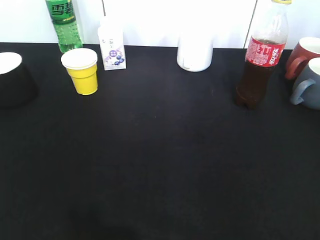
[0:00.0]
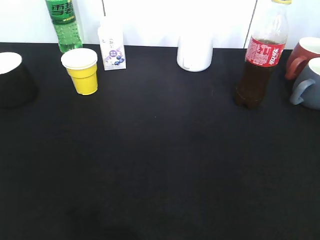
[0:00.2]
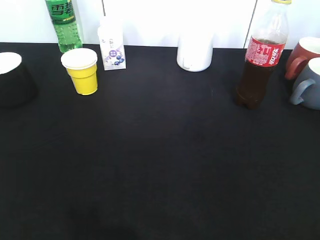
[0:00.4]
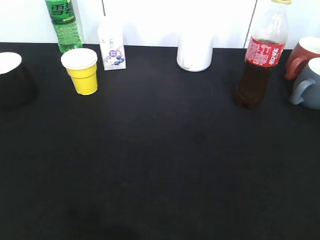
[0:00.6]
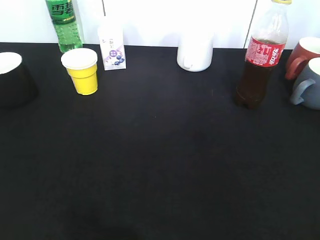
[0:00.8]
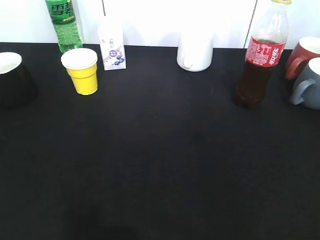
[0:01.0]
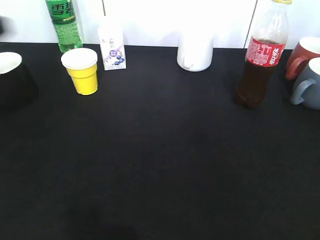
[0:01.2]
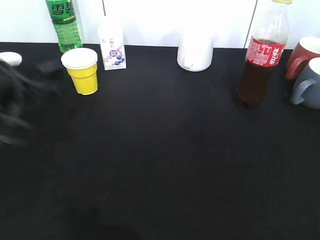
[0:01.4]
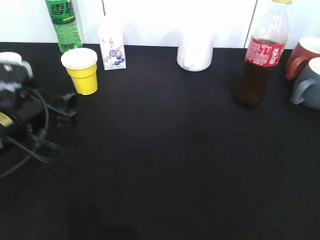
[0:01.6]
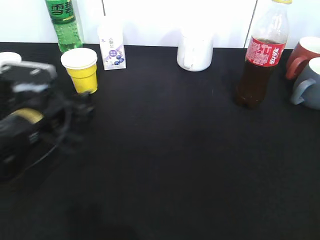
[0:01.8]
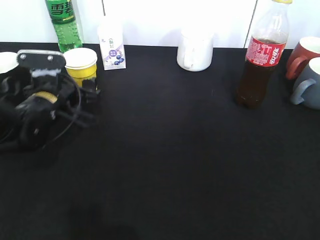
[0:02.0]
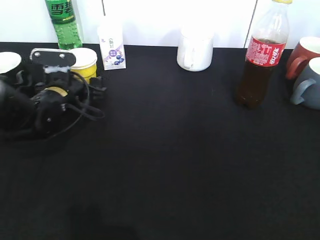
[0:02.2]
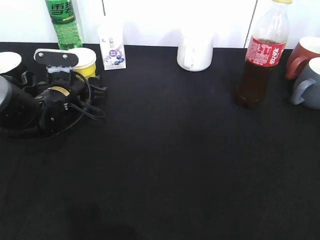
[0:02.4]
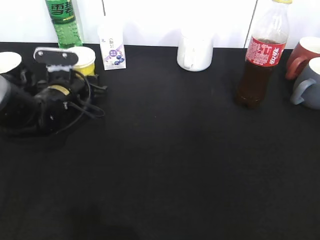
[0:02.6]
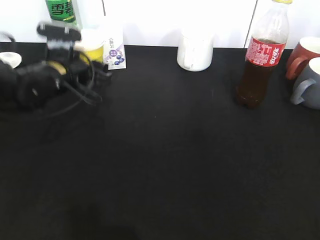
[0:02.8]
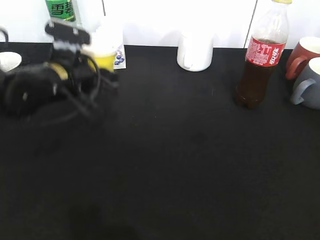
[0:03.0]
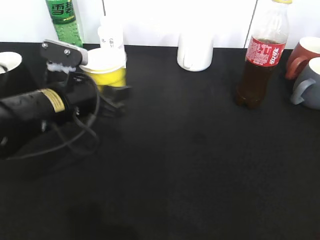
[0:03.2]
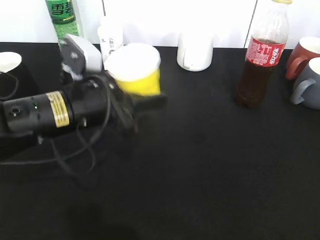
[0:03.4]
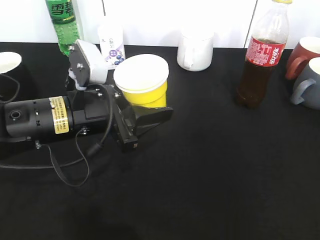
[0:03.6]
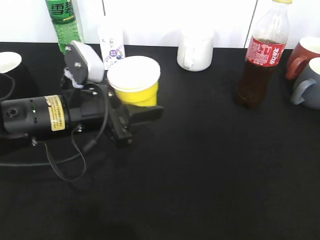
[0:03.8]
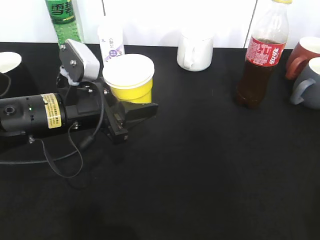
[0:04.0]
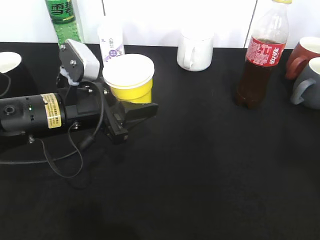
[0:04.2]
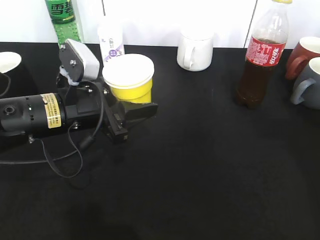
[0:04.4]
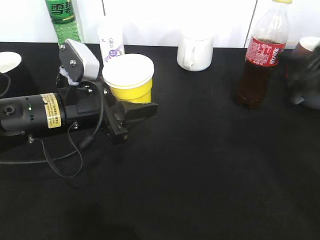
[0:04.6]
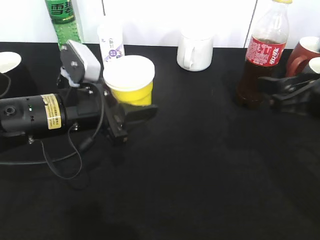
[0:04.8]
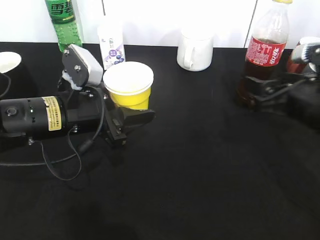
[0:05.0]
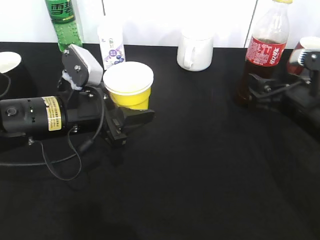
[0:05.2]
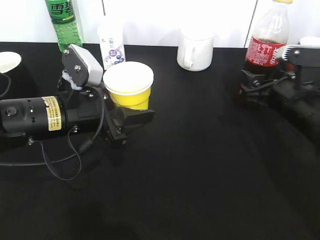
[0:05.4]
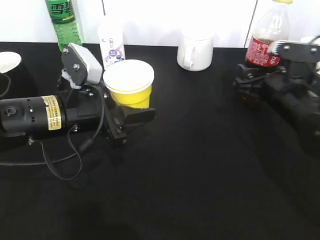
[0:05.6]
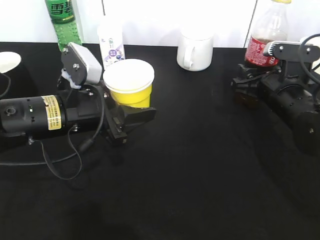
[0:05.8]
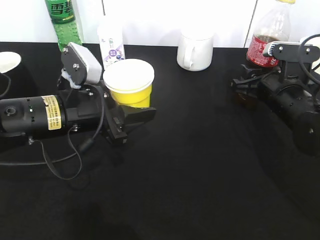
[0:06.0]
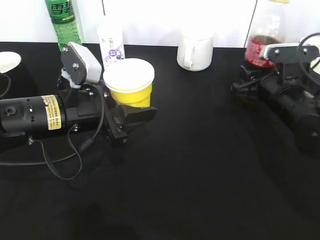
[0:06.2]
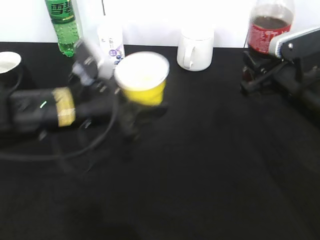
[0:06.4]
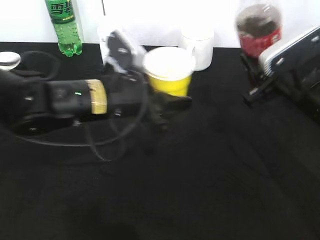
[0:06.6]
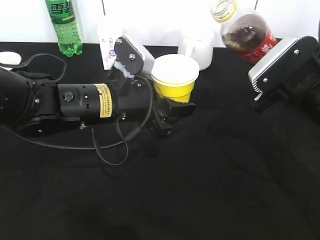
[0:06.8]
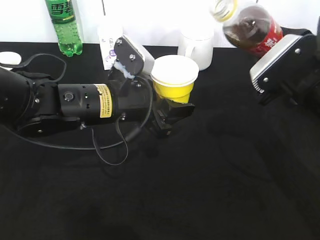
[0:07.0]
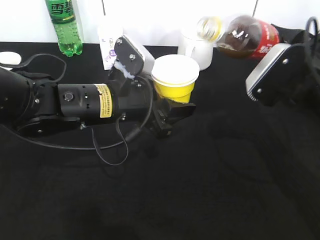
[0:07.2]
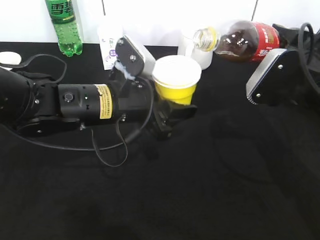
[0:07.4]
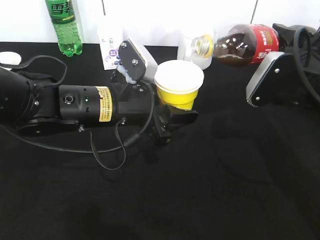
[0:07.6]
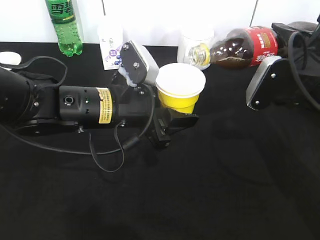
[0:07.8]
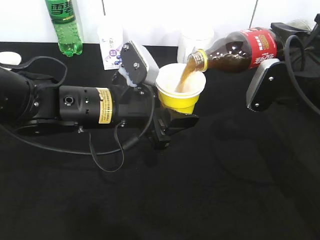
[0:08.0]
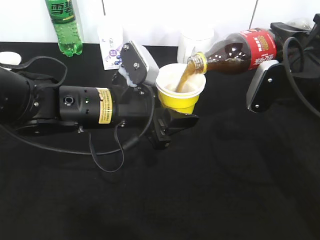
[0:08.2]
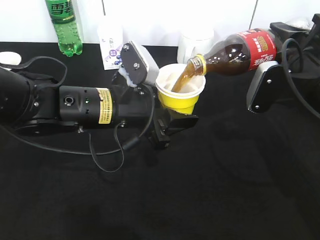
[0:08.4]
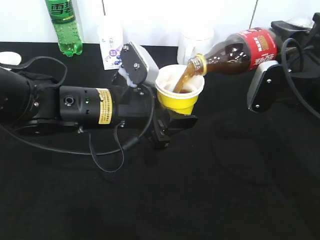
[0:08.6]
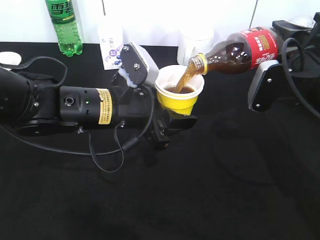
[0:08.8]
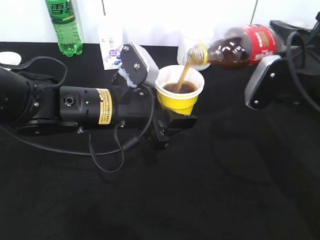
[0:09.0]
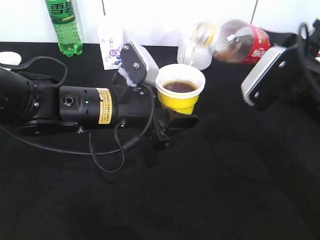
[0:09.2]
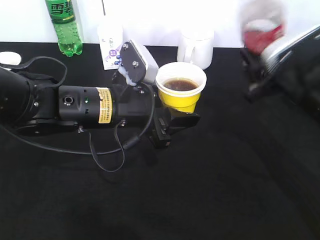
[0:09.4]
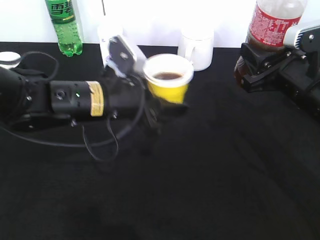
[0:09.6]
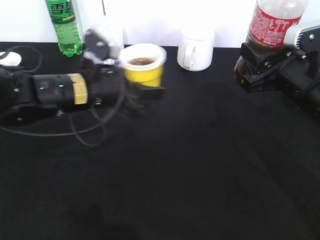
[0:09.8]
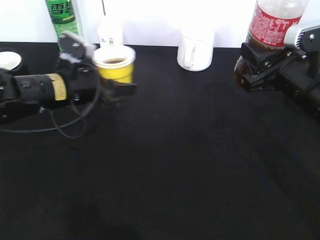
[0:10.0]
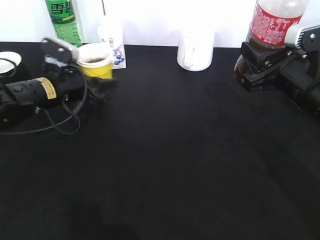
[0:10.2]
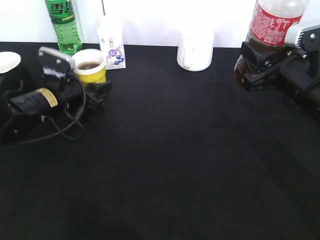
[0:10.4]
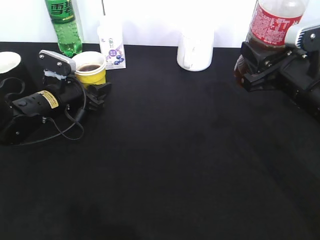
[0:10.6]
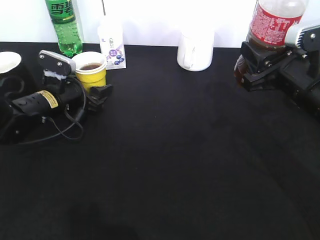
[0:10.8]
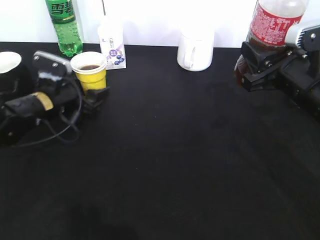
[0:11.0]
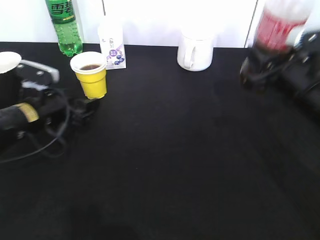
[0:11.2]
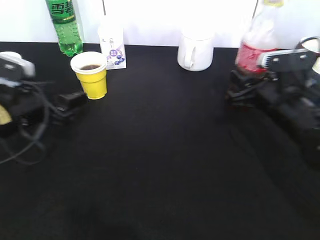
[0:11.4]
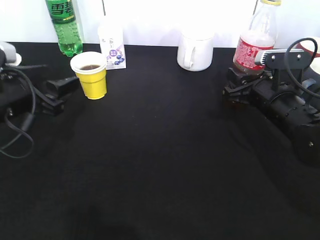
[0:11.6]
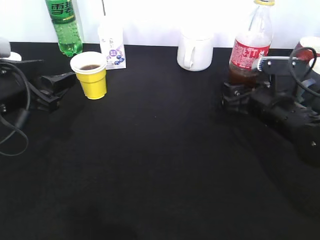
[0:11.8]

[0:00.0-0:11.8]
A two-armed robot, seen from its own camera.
Step, 0:00.0 to 0:02.4: Grasp the yellow paper cup with left gripper.
Step, 0:02.6 to 0:03.4: Lift the yellow paper cup with left gripper.
Step, 0:03.6 to 0:05.8: Grasp the bottle with cola with right gripper.
Step, 0:06.2 to 0:08.8: Pour the cola from bottle to cup with right gripper.
Step, 0:09.0 to 0:10.8: Place the yellow paper cup on the table with left gripper.
0:00.0 to 0:01.4: The left gripper shifts about 25 cm forward and to the right, and opens up.
0:01.4 to 0:03.0: The left gripper goes about 10 cm forward and to the right.
0:03.0 to 0:04.4: The left gripper heads backward, covering some 5 cm. The right gripper is displaced forward by some 20 cm.
0:04.4 to 0:06.0: The right gripper shifts roughly 25 cm downward, forward and to the left, and closes up.
0:06.0 to 0:07.4: The left gripper goes roughly 5 cm to the right. The right gripper travels upward and backward by approximately 10 cm.
0:07.4 to 0:08.8: The grippers stay close to where they were, moving slightly.
0:08.8 to 0:10.4: The left gripper is displaced to the left, forward and downward by approximately 20 cm.
0:10.4 to 0:11.8: The left gripper heads backward and upward, covering some 15 cm. Meanwhile the right gripper is displaced downward by roughly 10 cm, and opens its fingers.

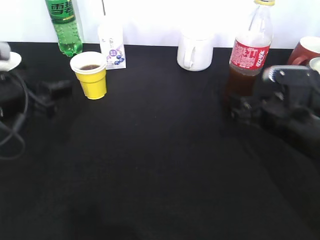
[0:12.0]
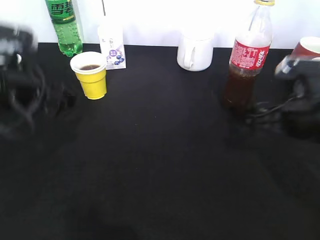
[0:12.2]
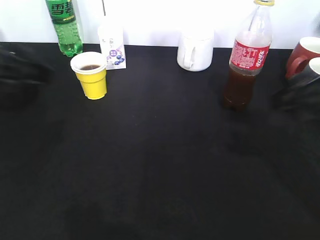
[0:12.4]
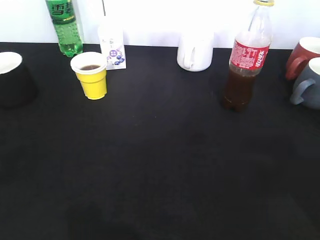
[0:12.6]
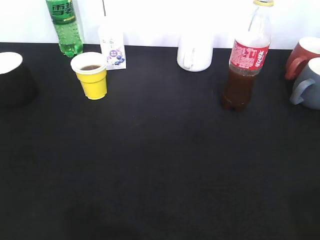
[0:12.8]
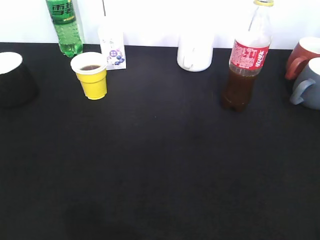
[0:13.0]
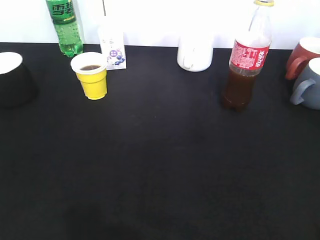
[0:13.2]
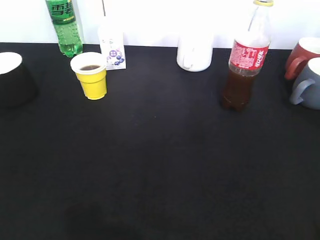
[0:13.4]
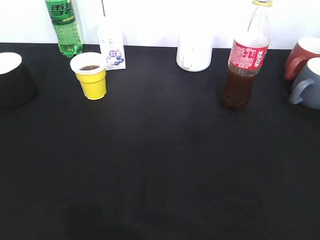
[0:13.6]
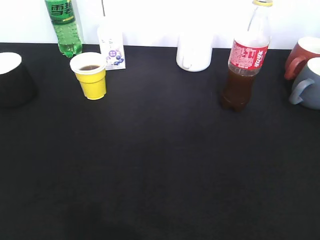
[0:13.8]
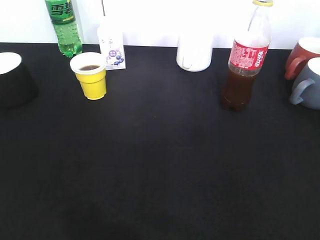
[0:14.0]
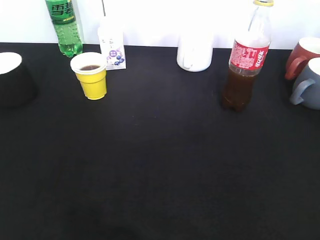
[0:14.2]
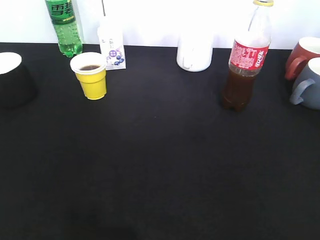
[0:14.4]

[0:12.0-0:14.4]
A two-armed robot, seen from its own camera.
0:12.0 to 0:13.2: The left gripper moves backward, roughly 25 cm. Meanwhile the right gripper goes some 30 cm backward and upward.
0:13.2 to 0:14.4: The left gripper closes its fingers.

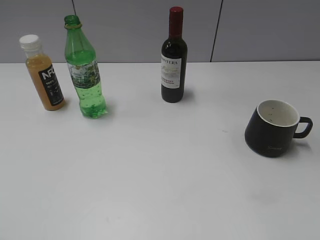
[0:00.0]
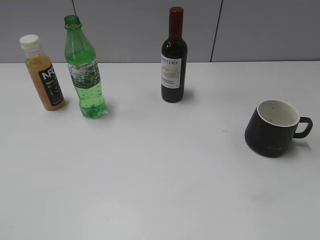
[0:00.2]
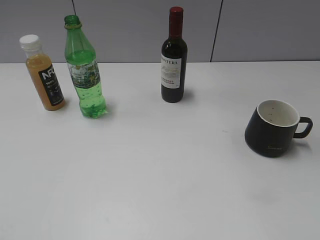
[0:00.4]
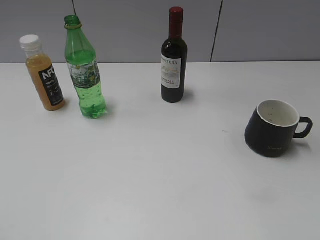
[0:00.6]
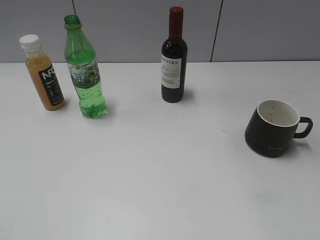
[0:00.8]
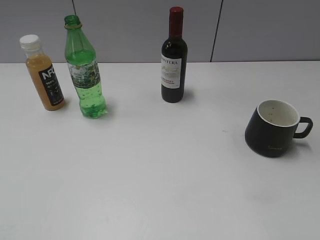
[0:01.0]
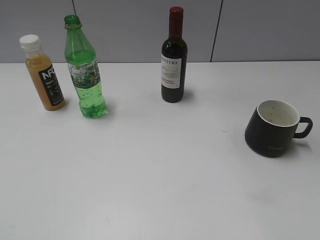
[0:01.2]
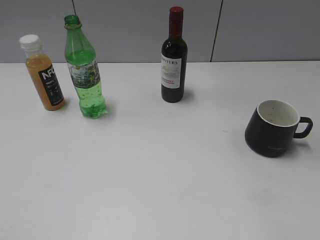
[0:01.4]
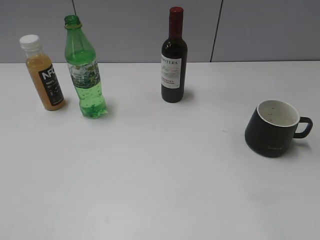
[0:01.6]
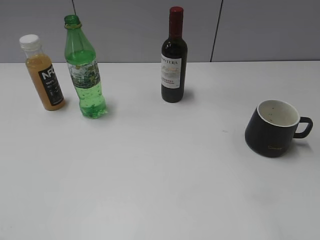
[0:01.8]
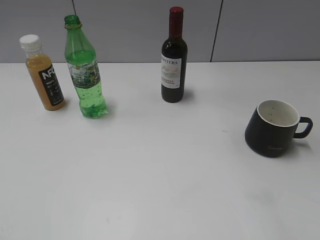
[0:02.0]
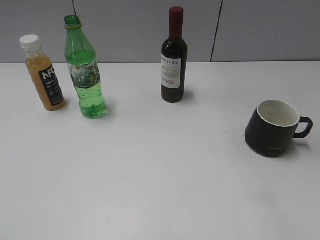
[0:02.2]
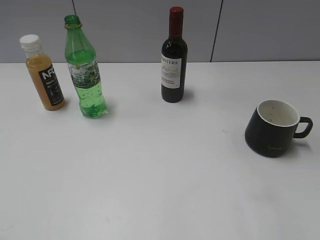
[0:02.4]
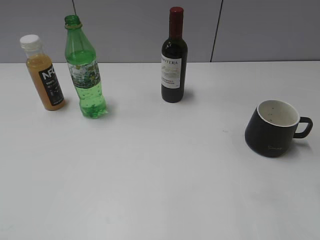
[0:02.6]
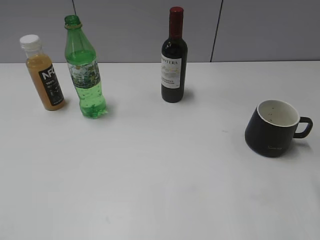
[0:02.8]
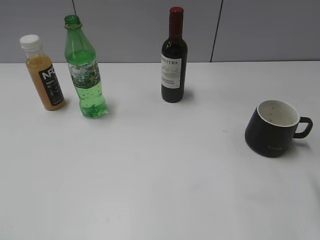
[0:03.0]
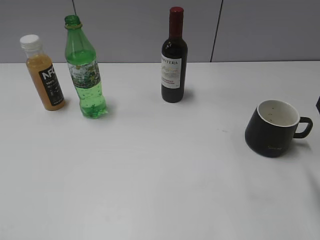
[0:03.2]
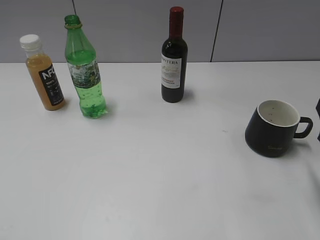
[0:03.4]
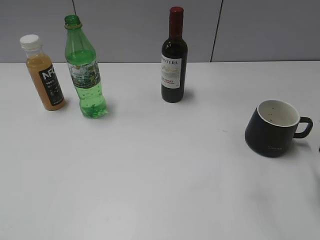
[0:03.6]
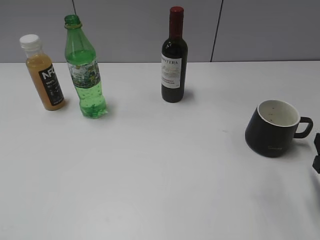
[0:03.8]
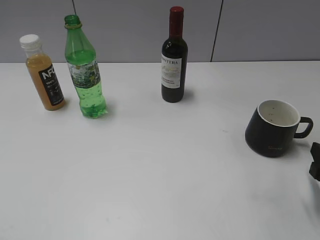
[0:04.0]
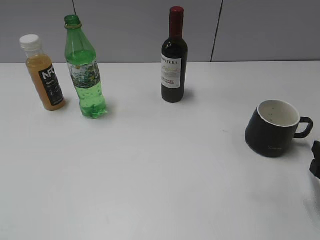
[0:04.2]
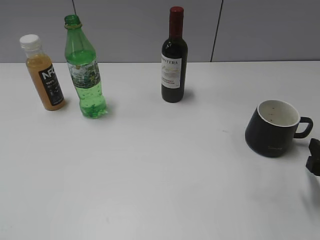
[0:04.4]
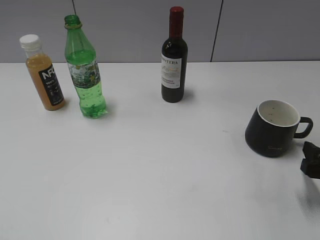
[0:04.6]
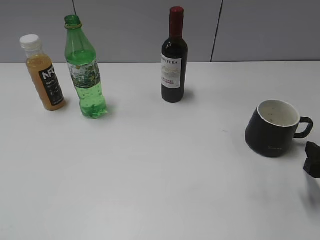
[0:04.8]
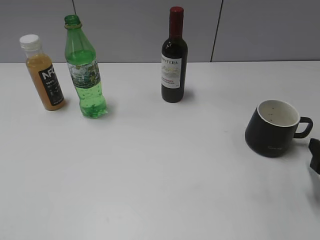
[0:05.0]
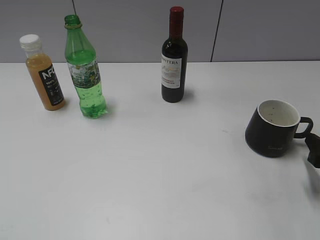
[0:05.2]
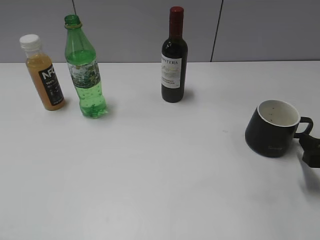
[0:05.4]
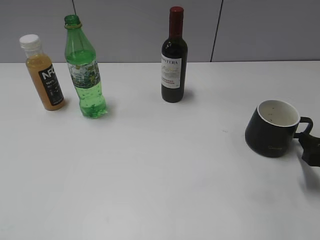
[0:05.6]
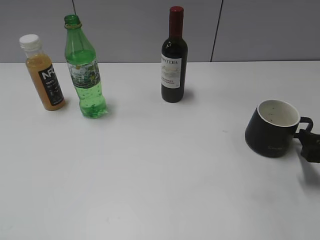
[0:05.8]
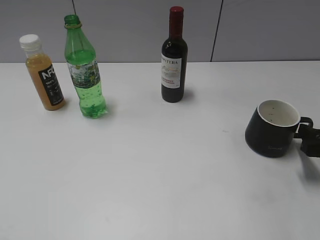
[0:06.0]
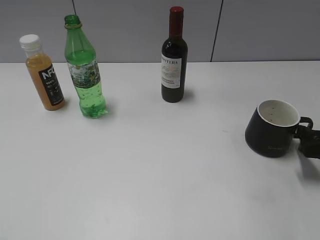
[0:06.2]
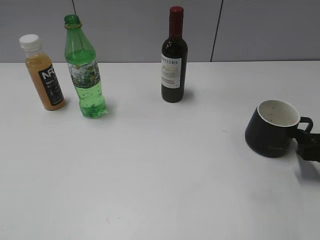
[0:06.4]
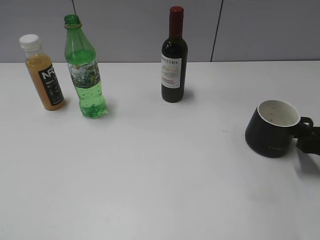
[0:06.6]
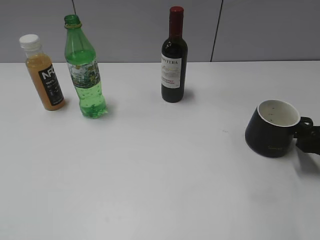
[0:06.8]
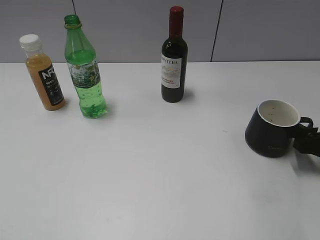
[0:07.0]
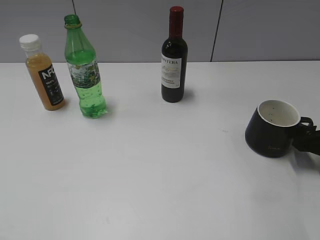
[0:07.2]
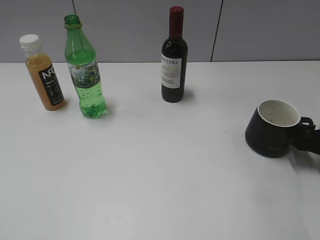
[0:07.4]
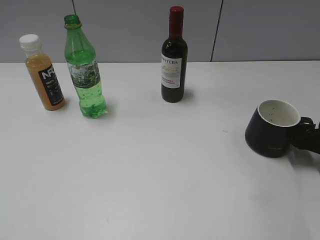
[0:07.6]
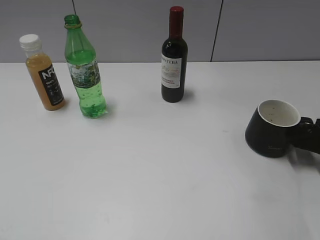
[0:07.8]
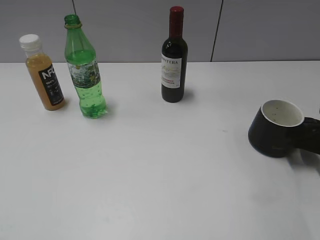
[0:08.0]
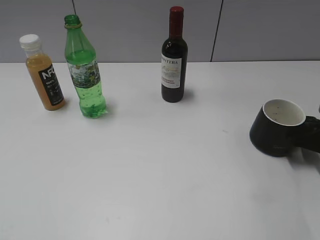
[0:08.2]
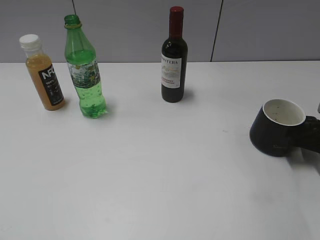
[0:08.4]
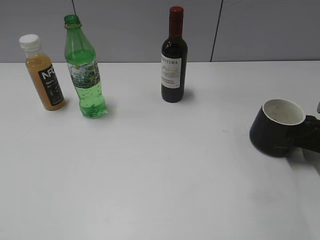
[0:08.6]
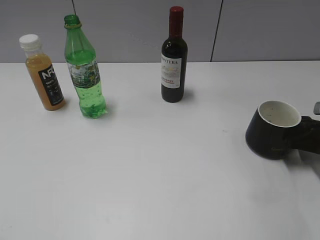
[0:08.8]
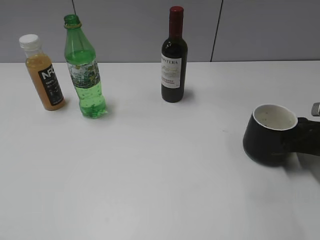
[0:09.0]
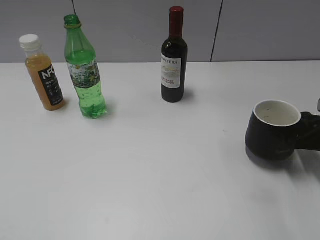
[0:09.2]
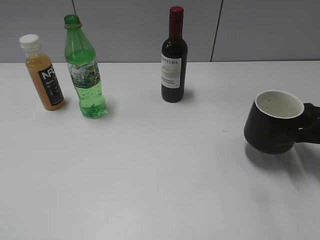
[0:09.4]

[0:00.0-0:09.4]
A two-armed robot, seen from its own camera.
Step, 0:01.0 to 0:08.8: Grasp the black cup with right gripper.
0:03.2 to 0:04.8: The right gripper is displaced downward by roughly 10 cm.
0:04.8 to 0:06.2: The right gripper goes approximately 5 cm forward.
0:06.2 to 0:07.8: The grippers move only a little.
0:07.8 to 0:09.4: The right gripper moves some 5 cm, and closes.
